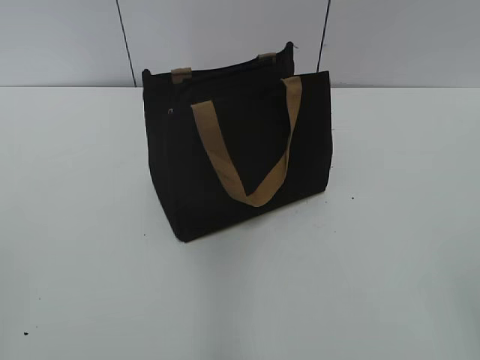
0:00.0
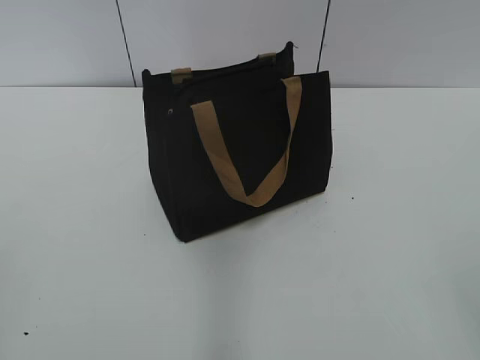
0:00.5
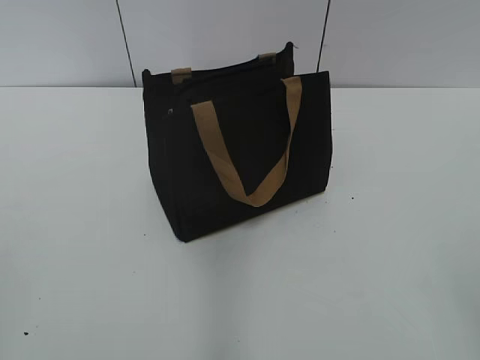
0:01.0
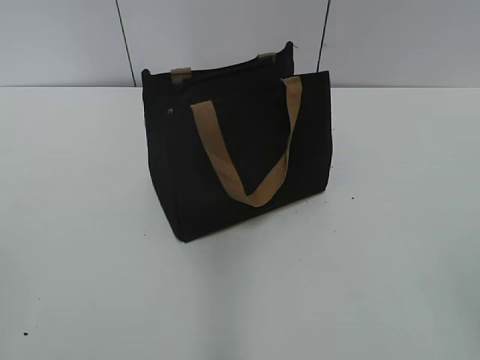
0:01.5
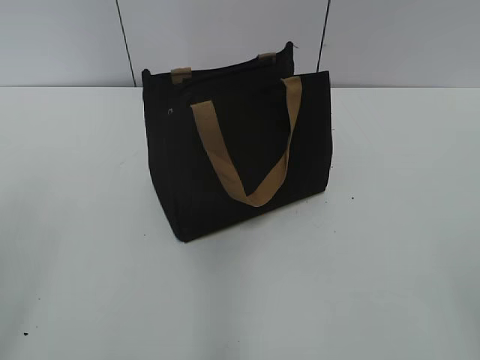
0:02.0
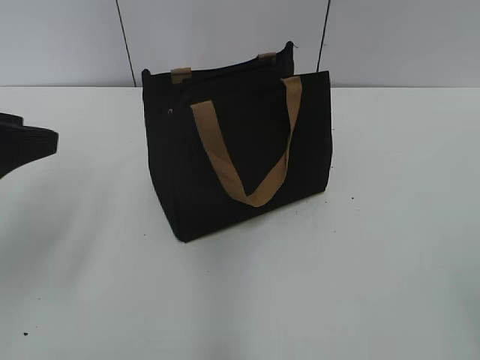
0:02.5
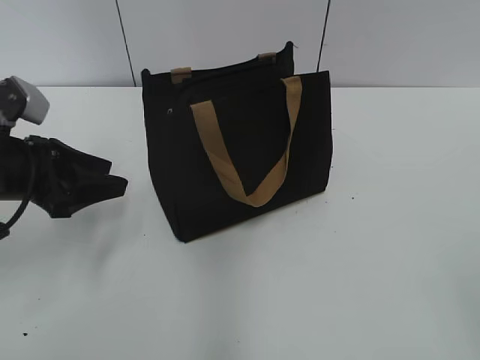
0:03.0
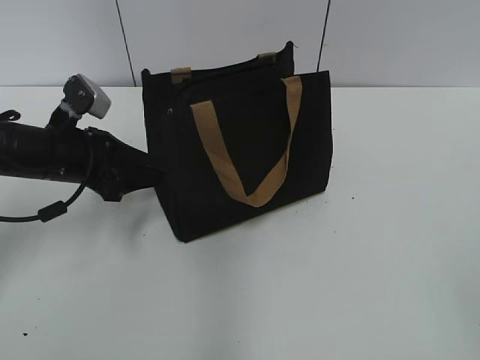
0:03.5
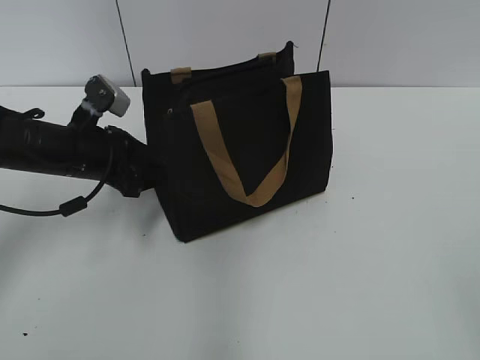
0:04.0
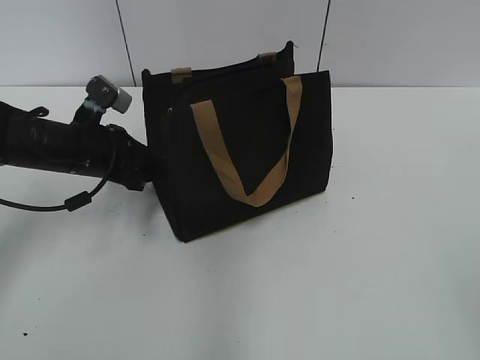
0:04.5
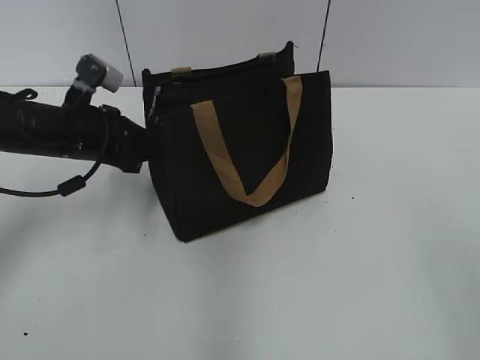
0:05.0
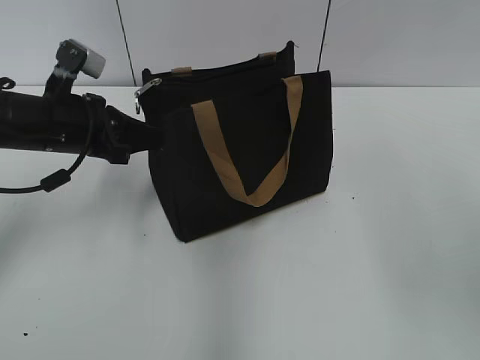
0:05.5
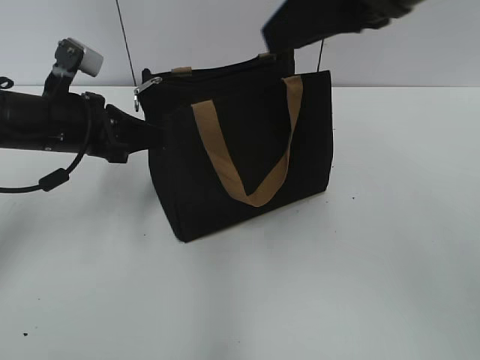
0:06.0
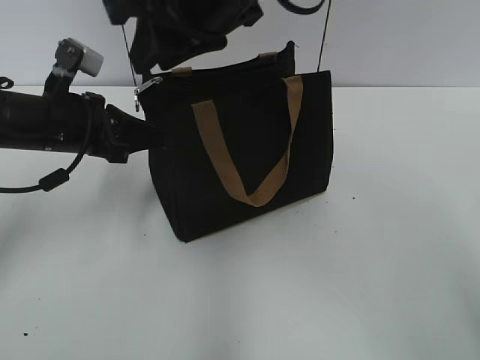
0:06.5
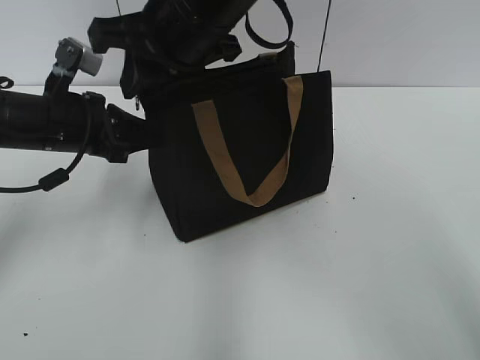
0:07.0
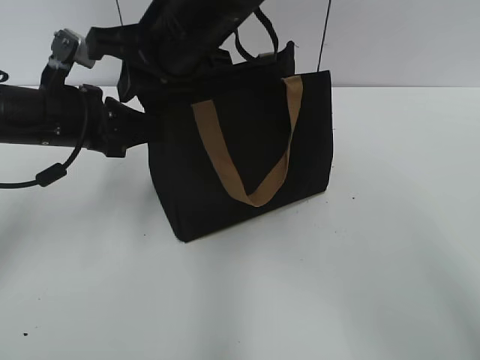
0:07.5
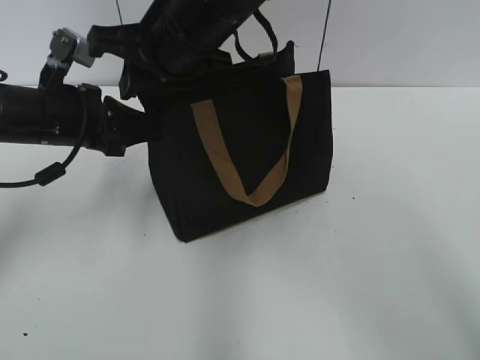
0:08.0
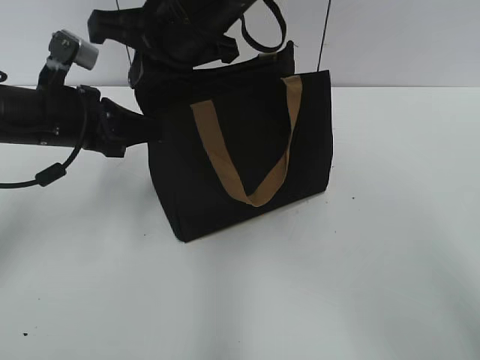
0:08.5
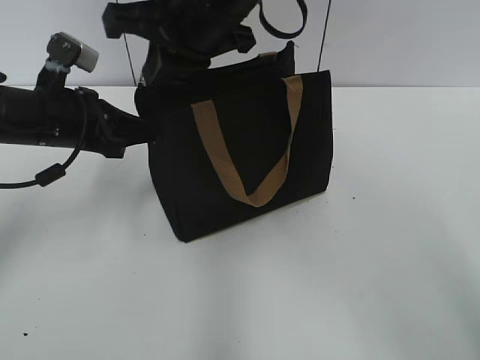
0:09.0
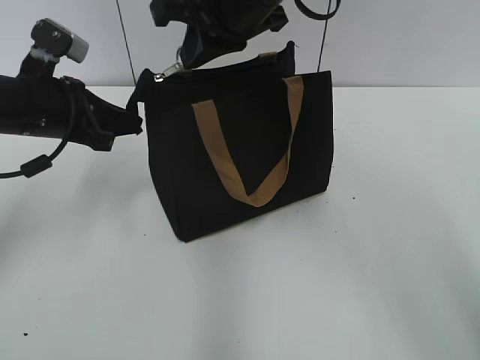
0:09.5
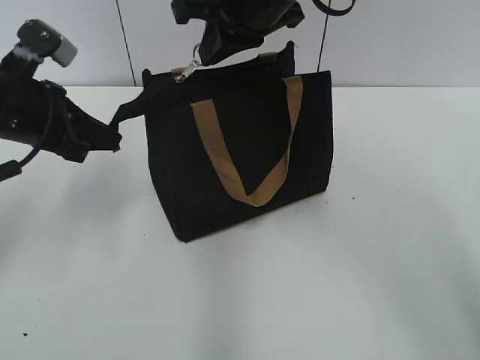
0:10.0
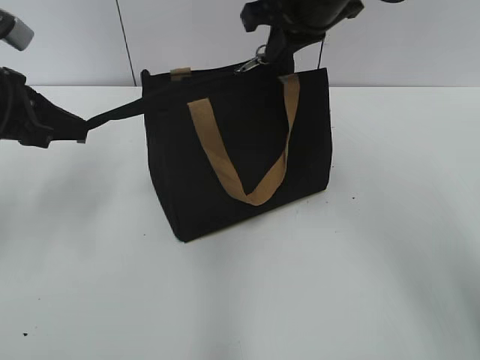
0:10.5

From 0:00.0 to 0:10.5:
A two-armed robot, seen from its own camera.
From 0:02.0 to 0:04.0: The left gripper shifts about 35 cm forward and downward.
From 0:04.0 to 0:06.5: The right gripper shifts roughly 40 cm forward and to the left. The left gripper closes its fingers.
From 0:06.5 to 0:08.5: The right gripper goes some 5 cm downward, and closes its fingers.
From 0:08.5 to 0:10.5: The right gripper goes some 10 cm to the right. The left gripper heads to the left, covering approximately 5 cm.

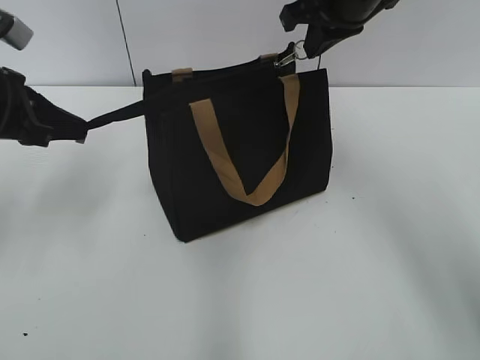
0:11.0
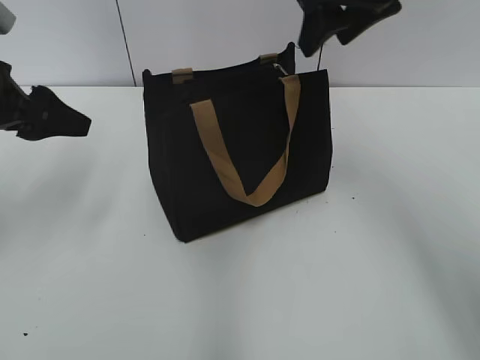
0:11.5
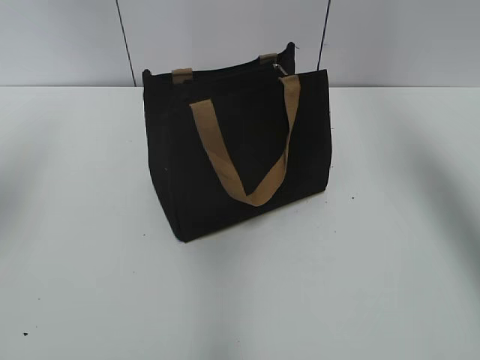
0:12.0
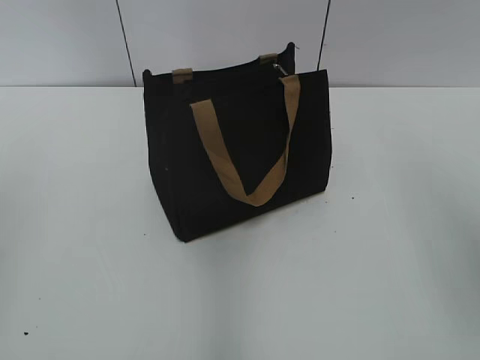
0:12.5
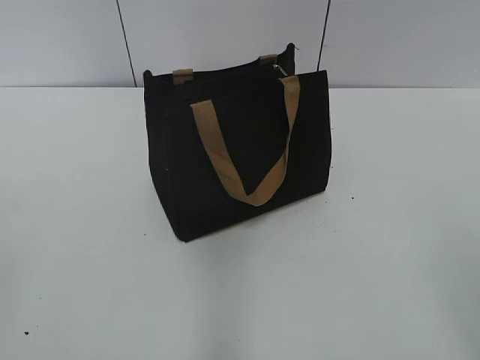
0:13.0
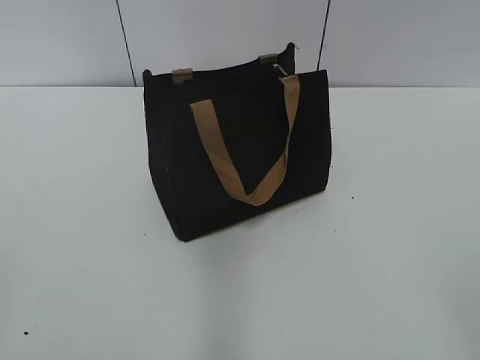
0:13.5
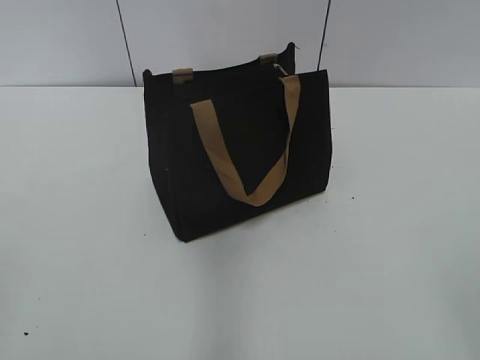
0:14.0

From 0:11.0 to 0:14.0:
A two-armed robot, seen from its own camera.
From 0:11.0 to 0:12.5: The right gripper goes approximately 25 cm backward and to the right, and opens up. Meanwhile the left gripper heads backward and upward, covering approximately 15 cm, and opens.
